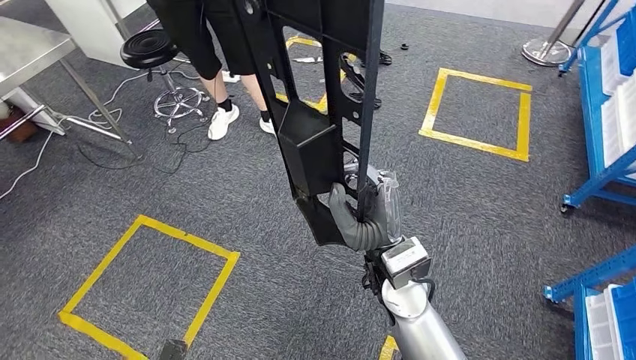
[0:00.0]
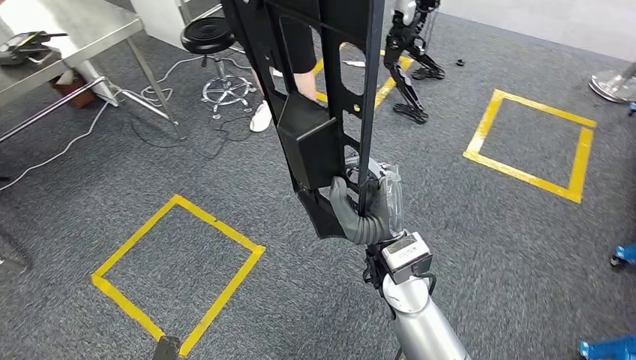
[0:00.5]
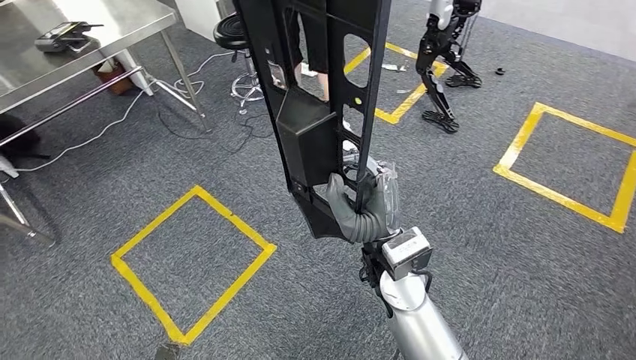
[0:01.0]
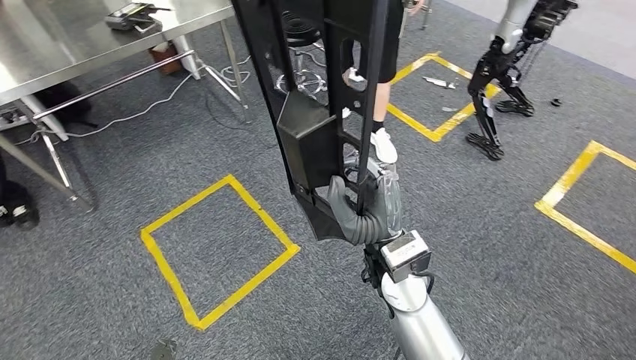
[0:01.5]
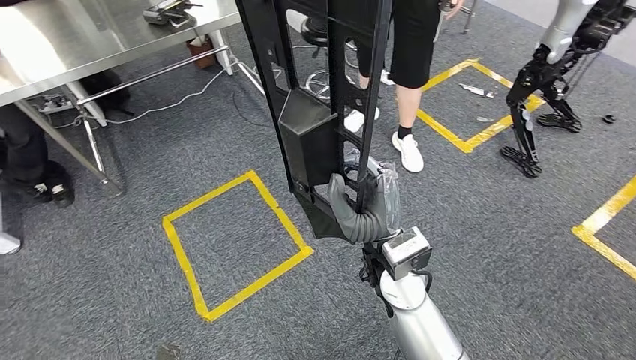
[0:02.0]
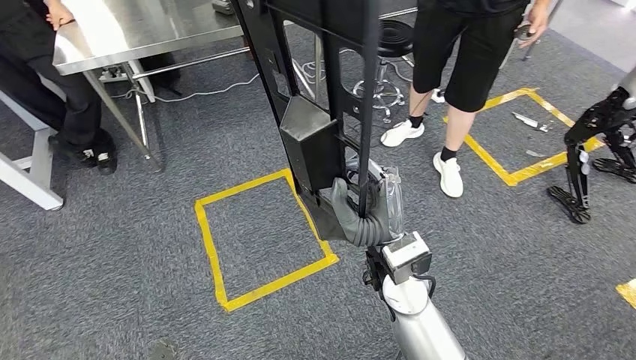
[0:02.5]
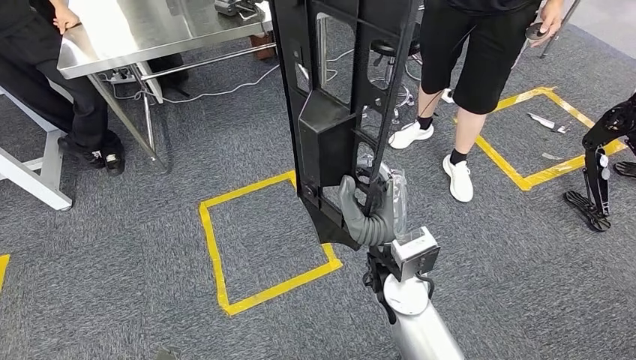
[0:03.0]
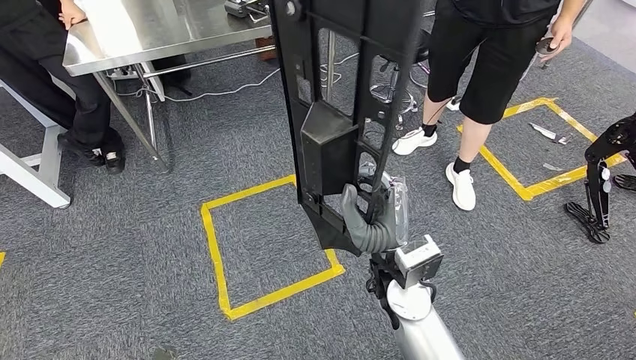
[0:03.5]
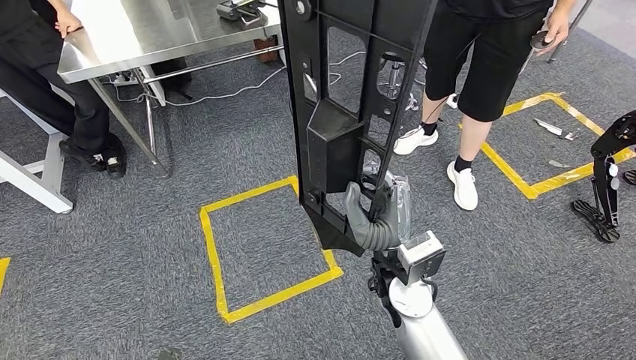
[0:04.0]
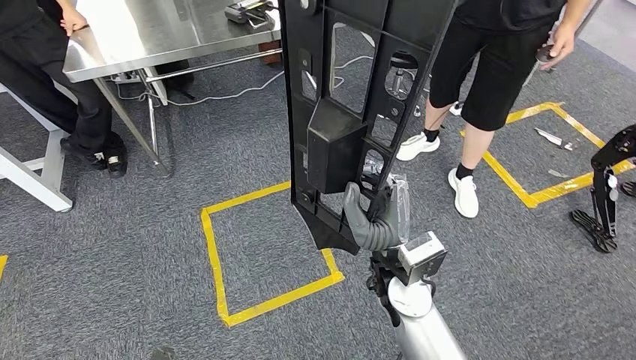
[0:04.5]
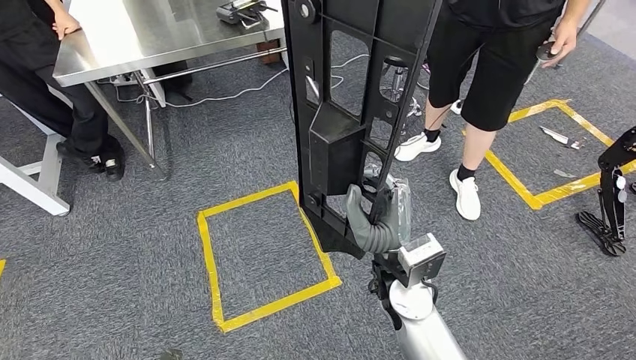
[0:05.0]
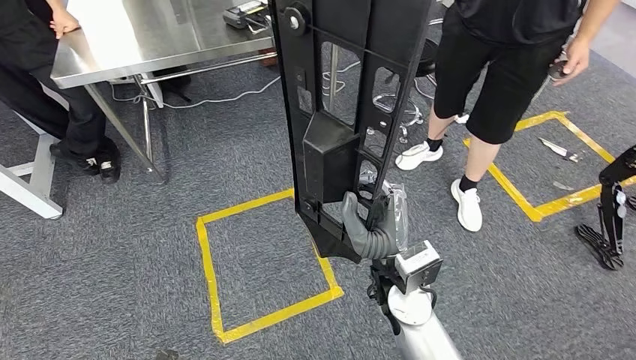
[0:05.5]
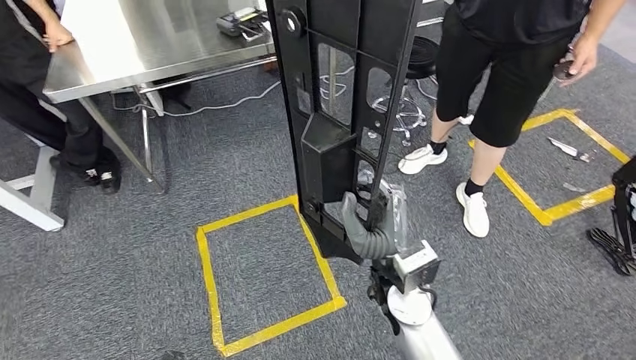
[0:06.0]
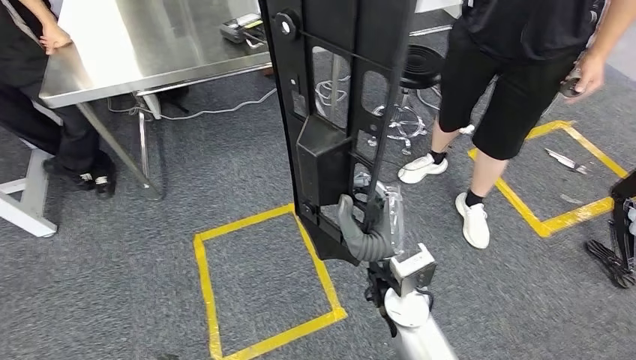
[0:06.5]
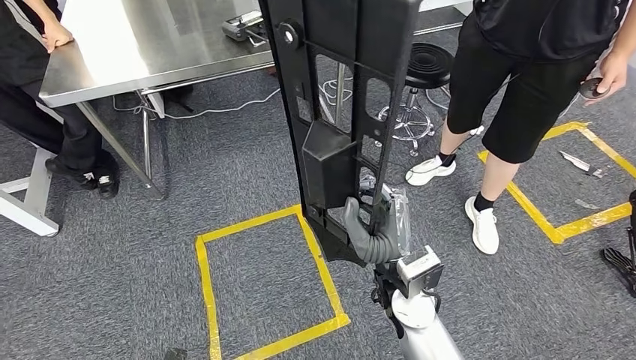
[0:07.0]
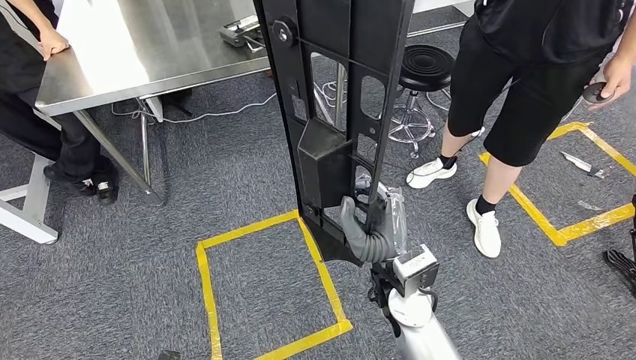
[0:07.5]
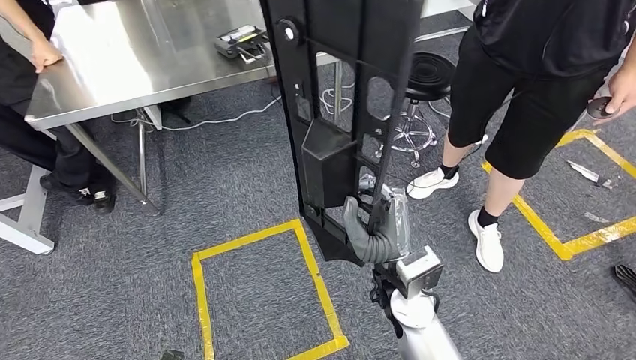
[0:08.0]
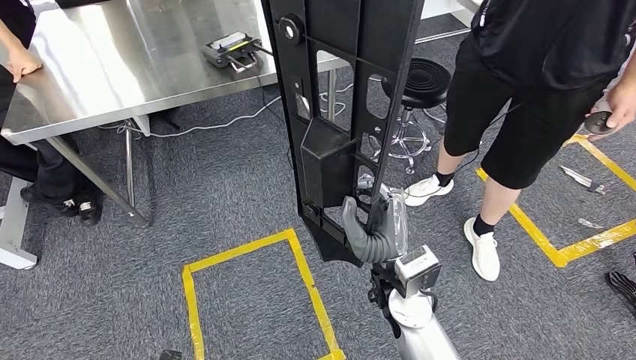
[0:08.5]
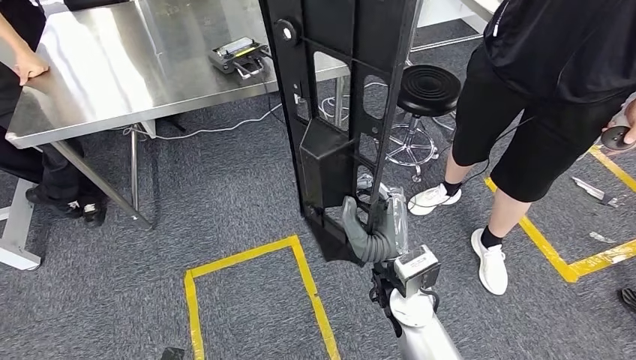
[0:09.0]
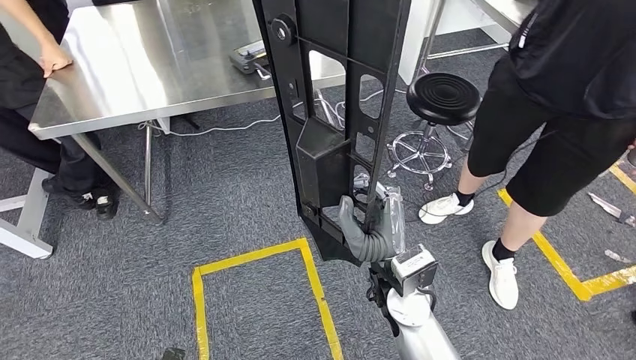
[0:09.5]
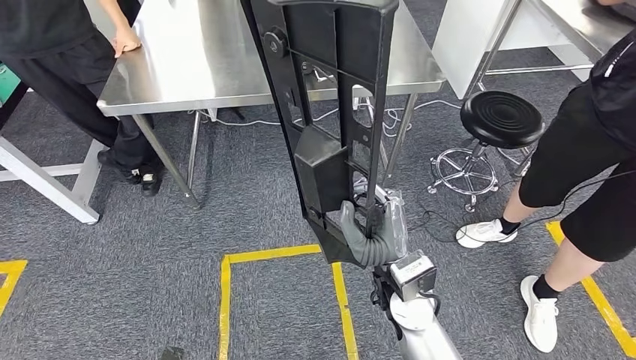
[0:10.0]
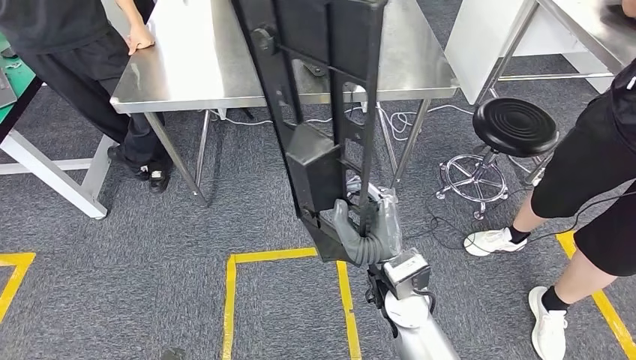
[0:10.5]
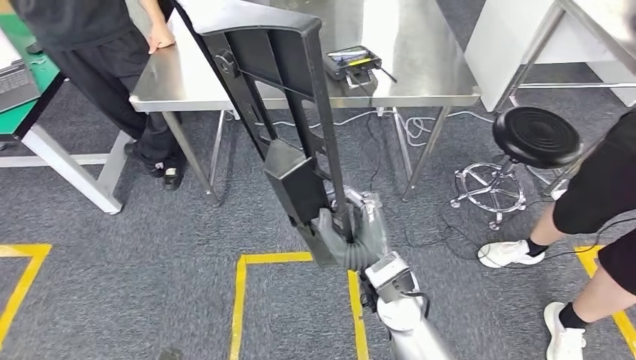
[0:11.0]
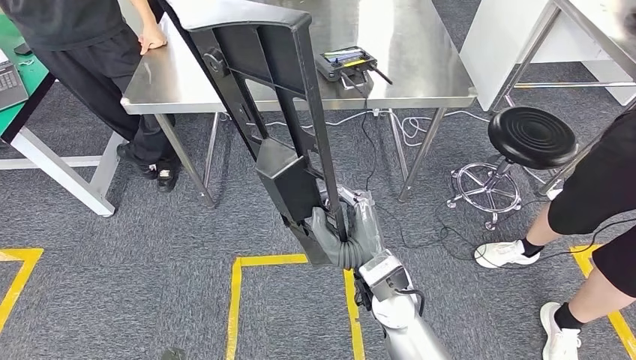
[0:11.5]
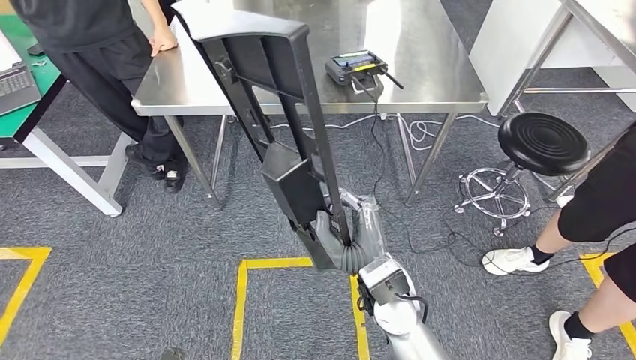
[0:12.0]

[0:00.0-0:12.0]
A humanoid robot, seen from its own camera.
Step, 0:00.0 to 0:06.0: Move the large material to the workbench.

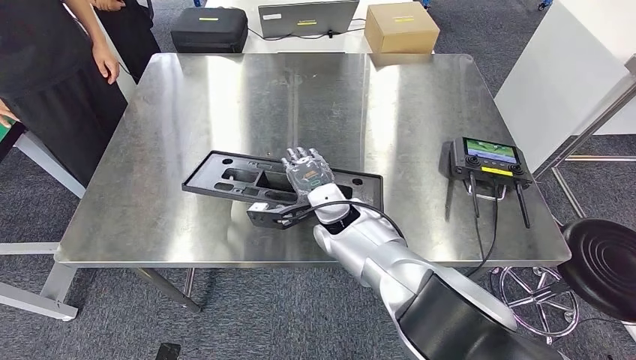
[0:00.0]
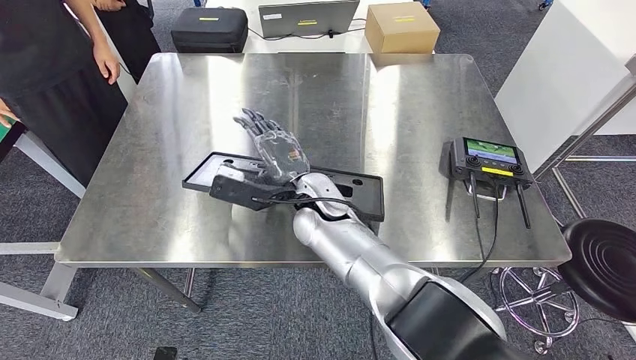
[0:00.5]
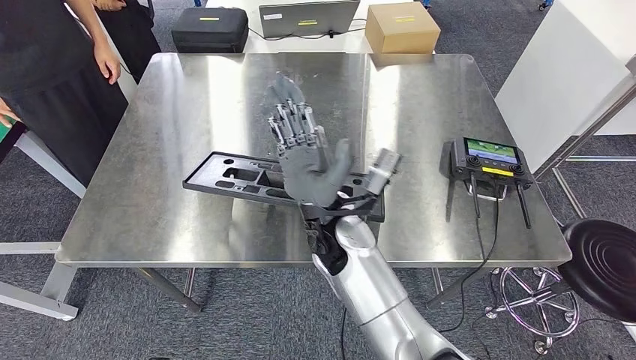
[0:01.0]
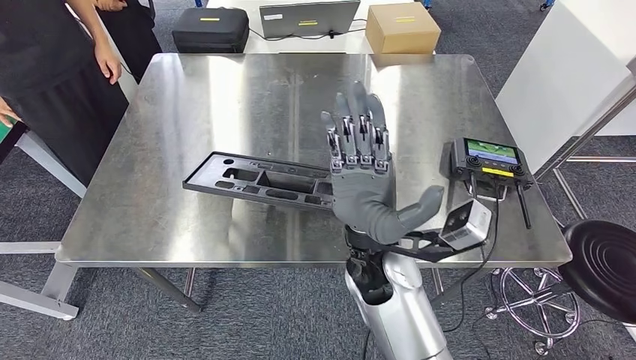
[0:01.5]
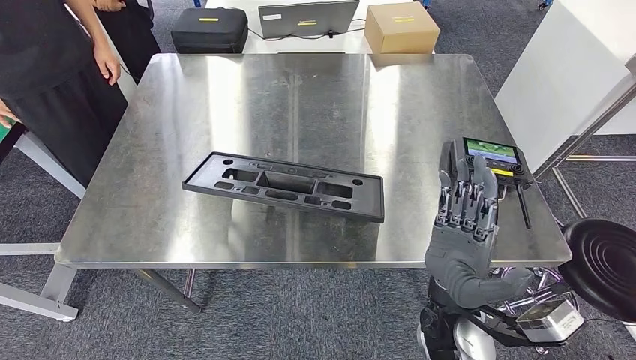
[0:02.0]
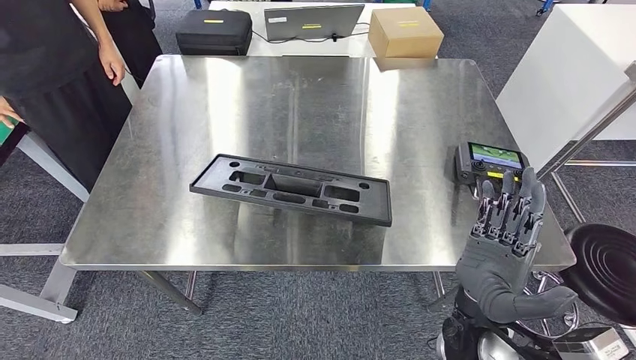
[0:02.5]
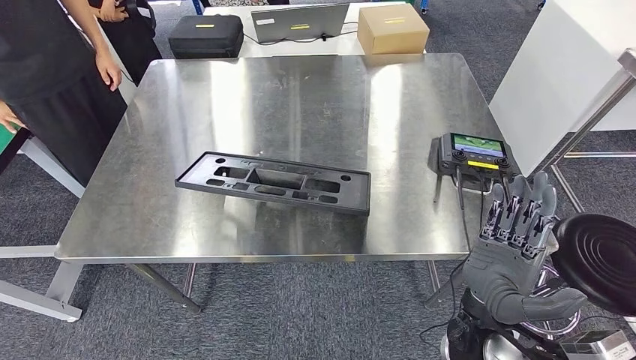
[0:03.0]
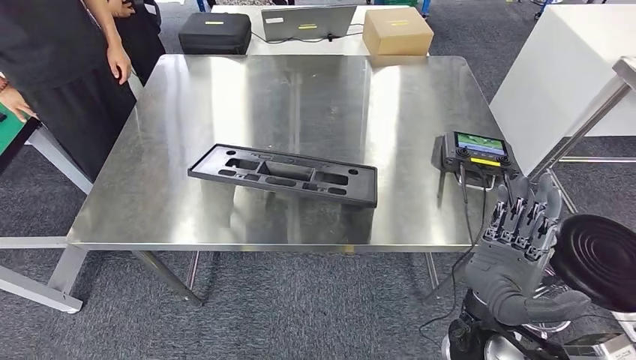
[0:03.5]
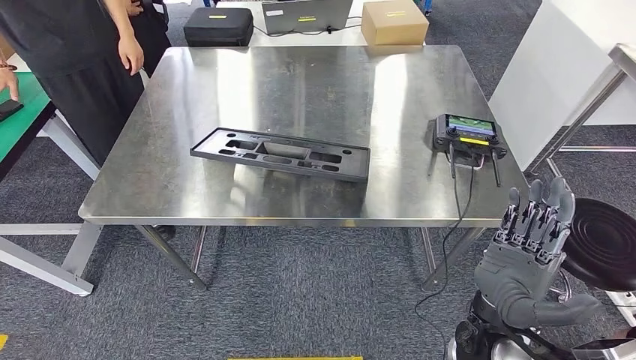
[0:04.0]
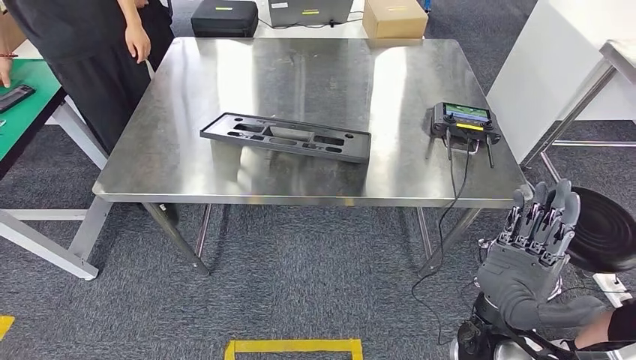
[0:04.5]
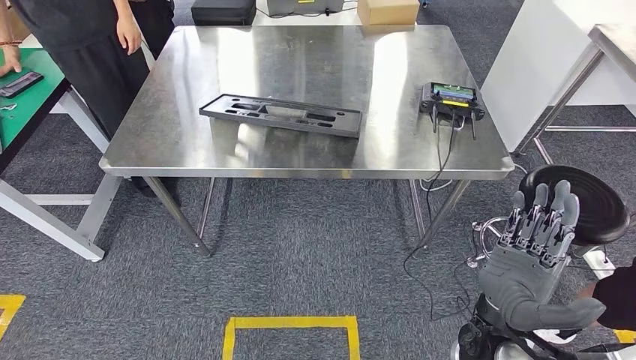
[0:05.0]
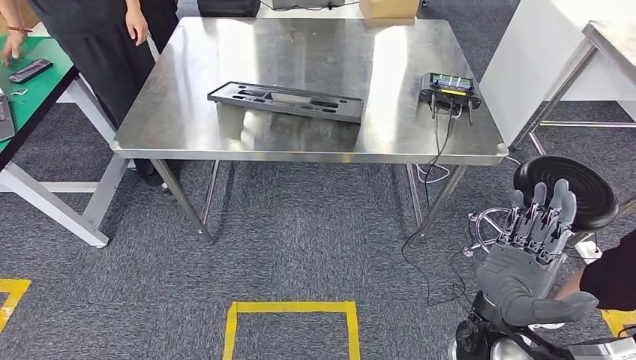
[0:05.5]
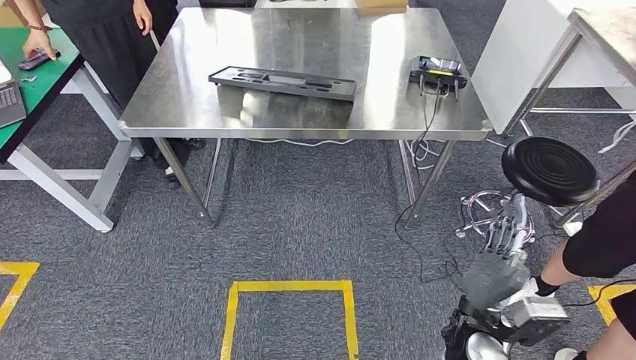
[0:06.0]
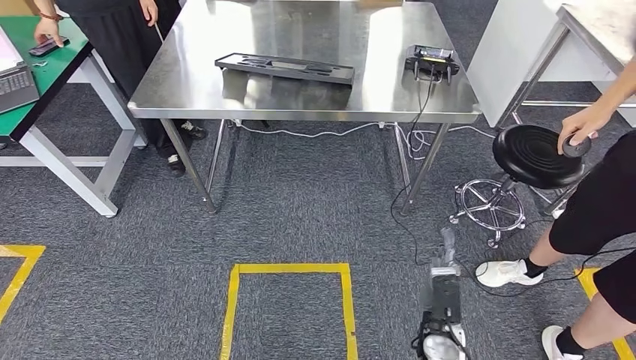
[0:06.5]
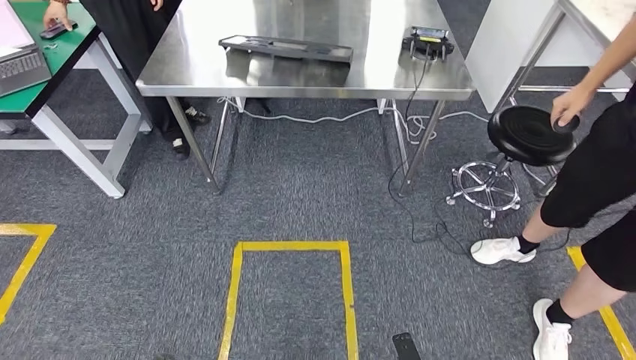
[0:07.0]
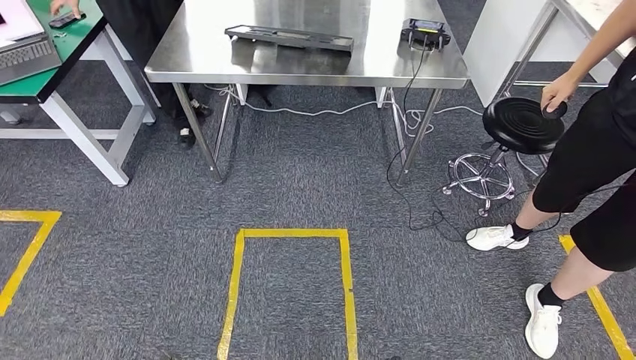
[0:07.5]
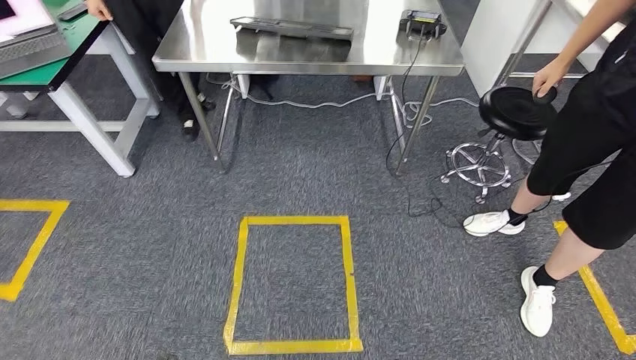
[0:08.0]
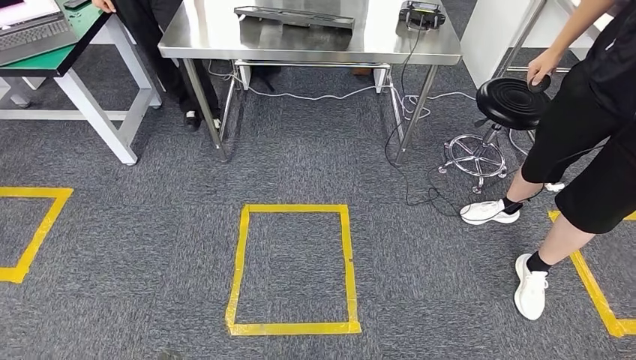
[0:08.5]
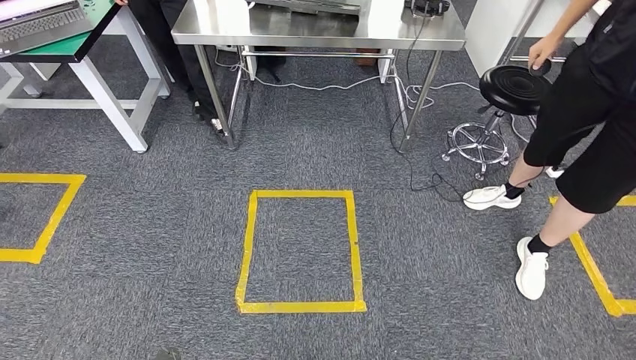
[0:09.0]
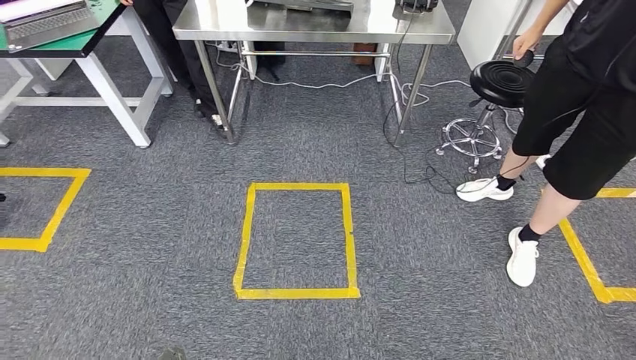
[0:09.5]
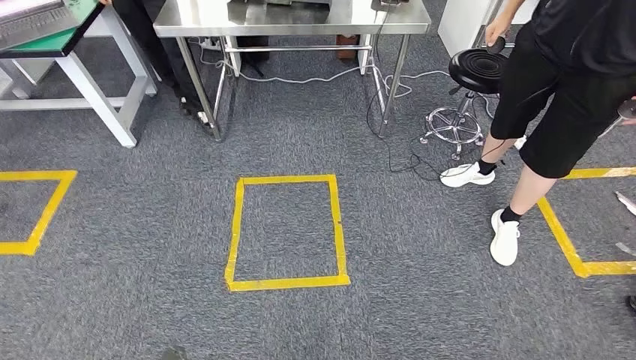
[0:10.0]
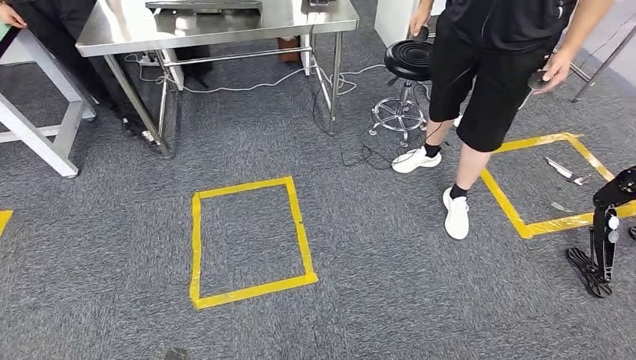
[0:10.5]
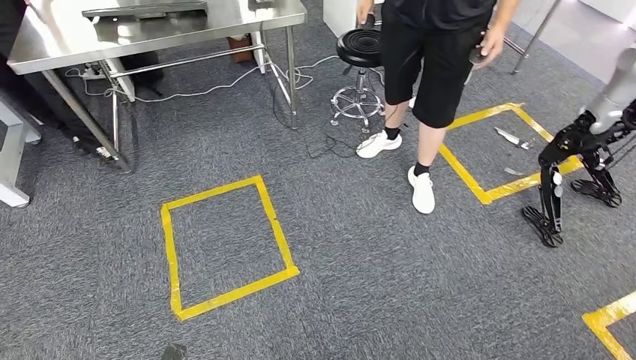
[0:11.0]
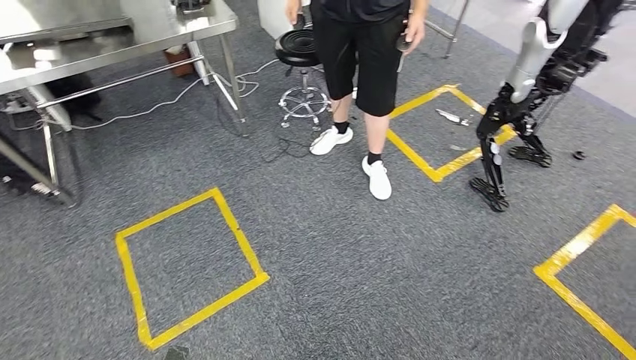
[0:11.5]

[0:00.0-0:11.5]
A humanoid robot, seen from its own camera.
Step, 0:00.0 to 0:02.5: Insert the large material into the corresponding slot on the workbench.
0:00.0 to 0:02.0: The right hand goes some 20 cm backward and to the right.
